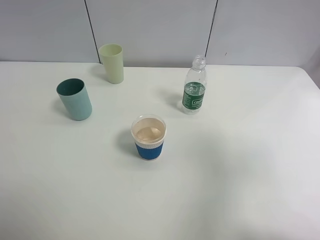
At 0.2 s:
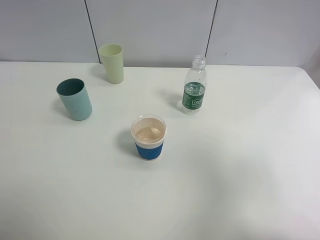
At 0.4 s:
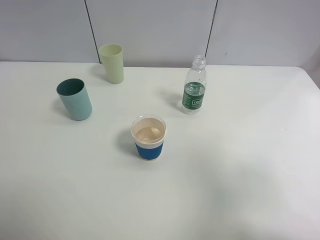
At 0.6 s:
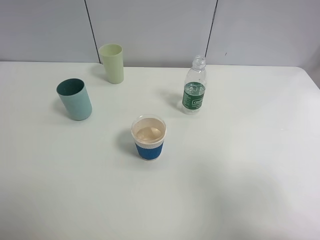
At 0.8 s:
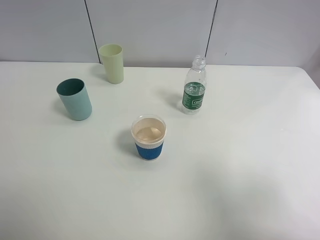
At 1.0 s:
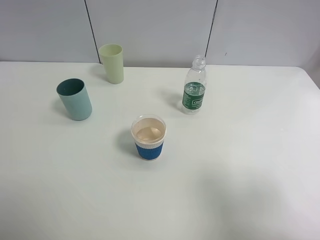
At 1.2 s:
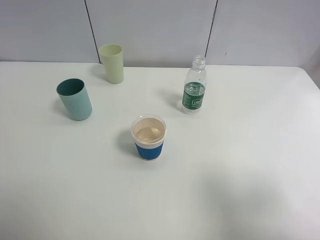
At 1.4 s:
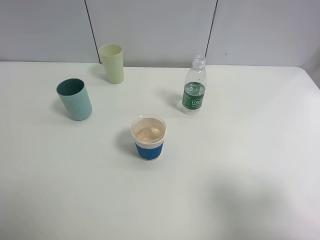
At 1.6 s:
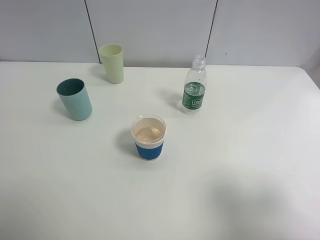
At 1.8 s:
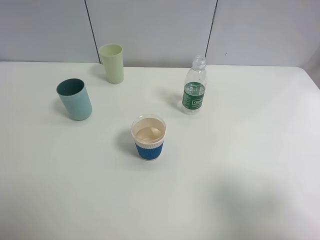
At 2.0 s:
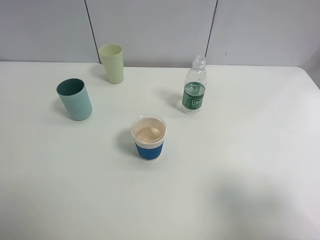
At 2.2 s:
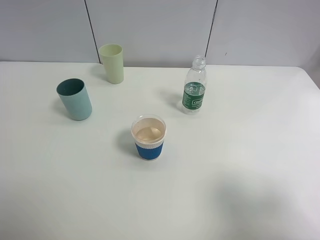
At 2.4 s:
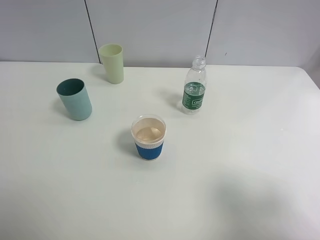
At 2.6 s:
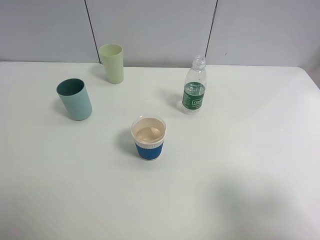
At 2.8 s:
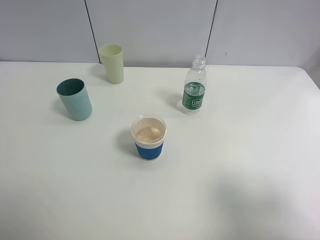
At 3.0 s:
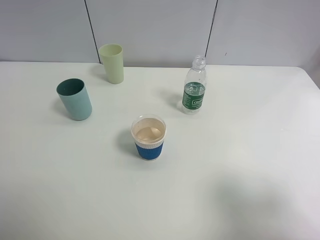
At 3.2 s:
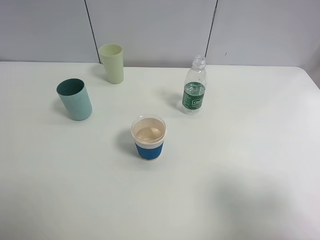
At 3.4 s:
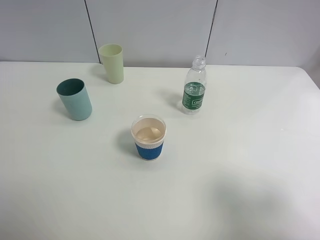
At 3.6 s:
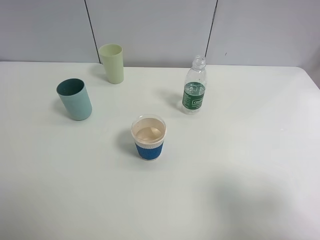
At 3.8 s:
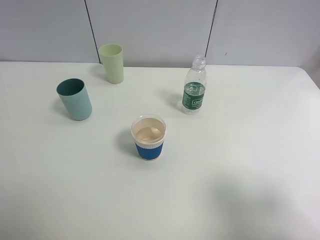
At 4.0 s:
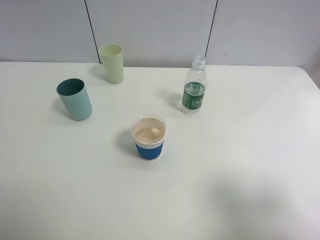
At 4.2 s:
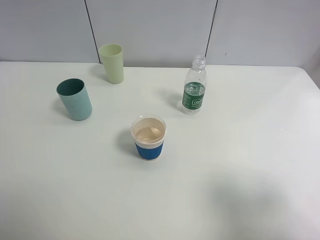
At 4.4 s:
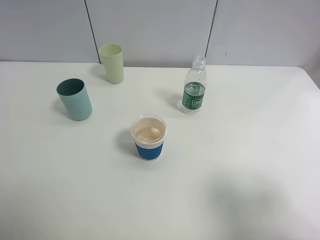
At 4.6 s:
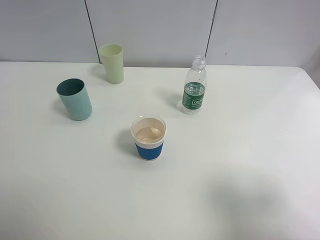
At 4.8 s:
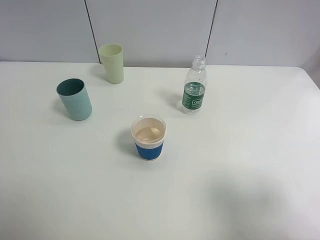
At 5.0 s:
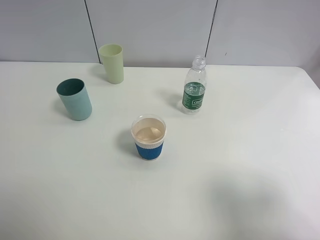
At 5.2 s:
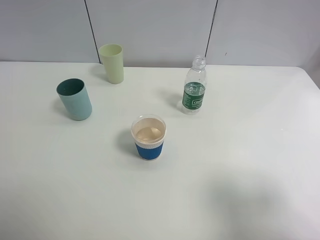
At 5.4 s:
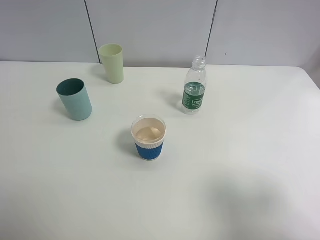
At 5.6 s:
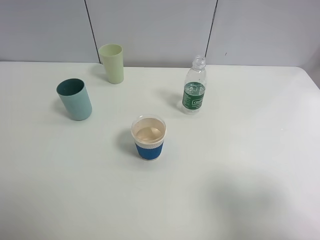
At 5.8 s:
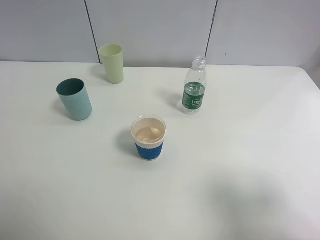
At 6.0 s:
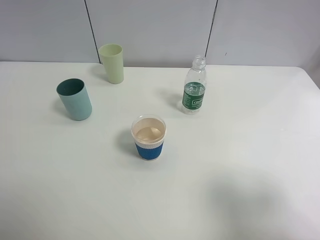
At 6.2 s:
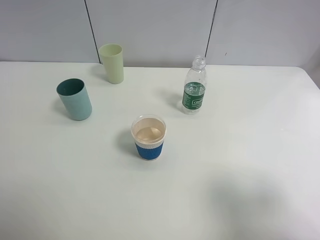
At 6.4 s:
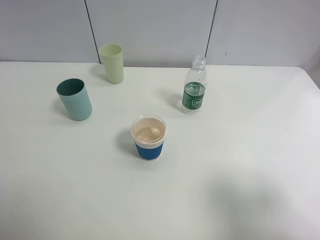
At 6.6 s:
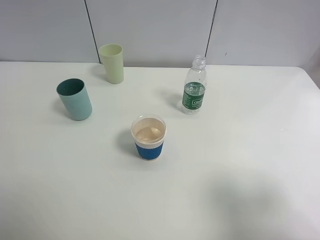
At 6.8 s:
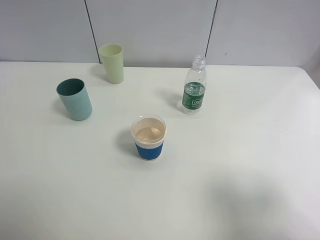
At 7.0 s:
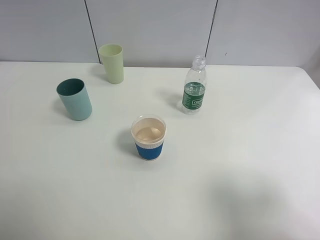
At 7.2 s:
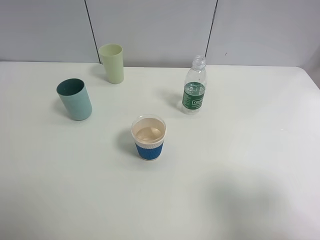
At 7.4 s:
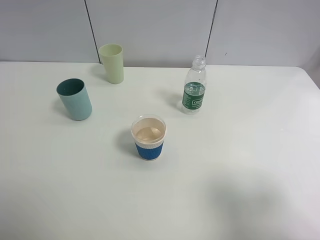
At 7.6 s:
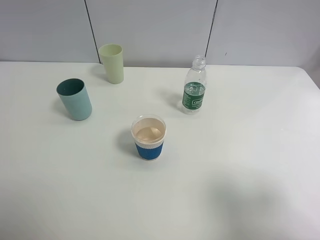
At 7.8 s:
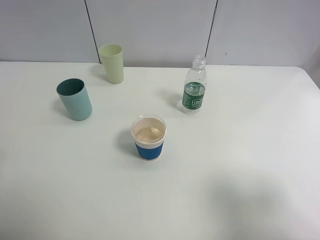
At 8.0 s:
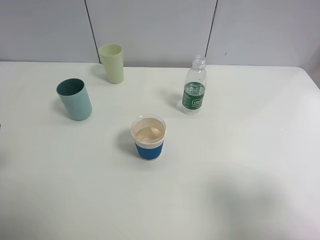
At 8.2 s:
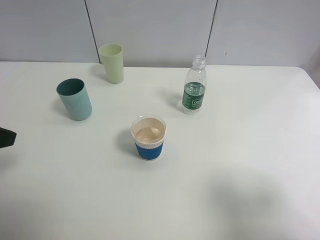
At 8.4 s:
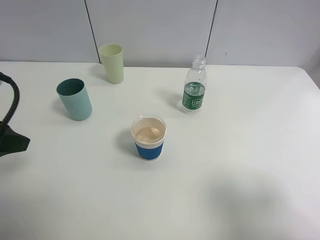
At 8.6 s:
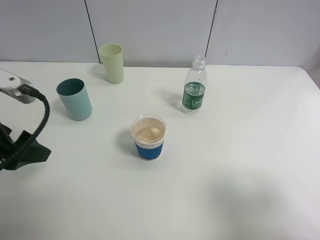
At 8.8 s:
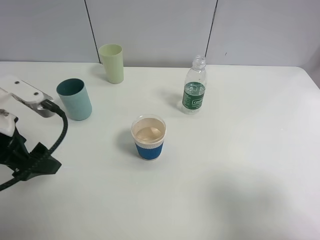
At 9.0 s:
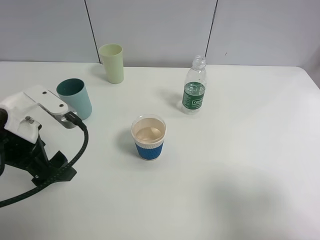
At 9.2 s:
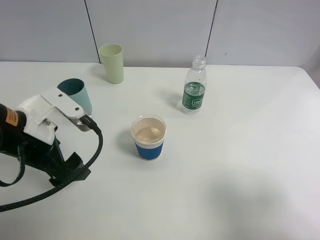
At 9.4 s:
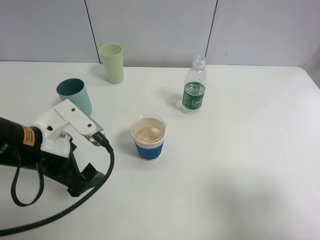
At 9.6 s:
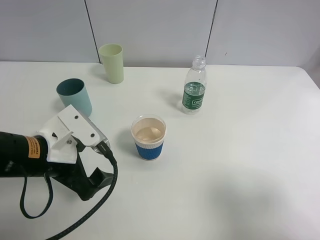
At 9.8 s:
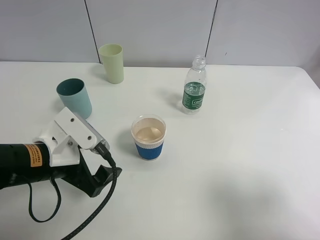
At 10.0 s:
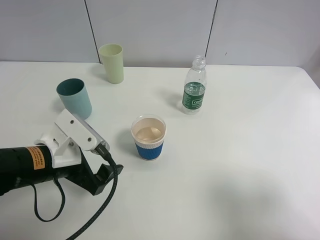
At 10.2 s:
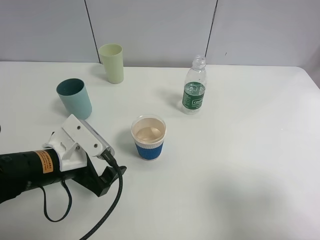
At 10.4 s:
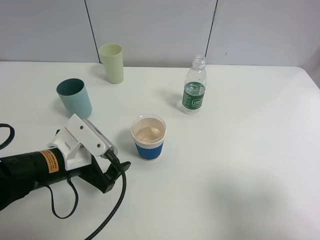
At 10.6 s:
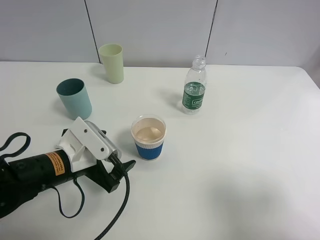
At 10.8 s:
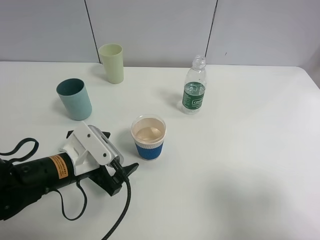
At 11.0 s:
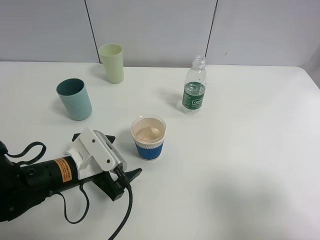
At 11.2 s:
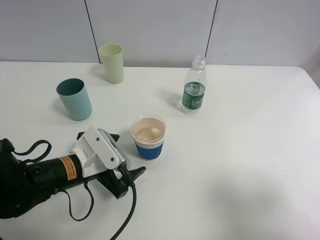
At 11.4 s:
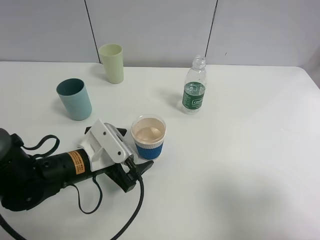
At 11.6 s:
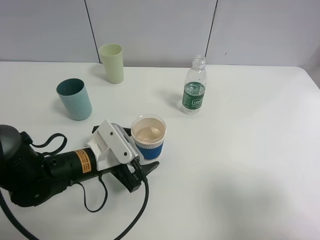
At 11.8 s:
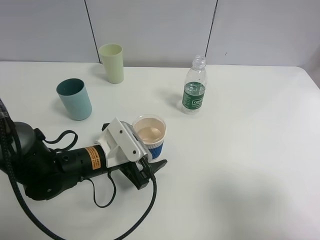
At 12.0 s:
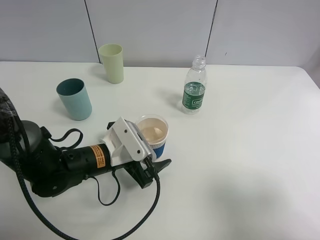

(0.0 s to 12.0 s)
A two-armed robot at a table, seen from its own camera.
Task of the whole recording: use a clamp to hold the bottle of the drink, pour the beverage into a random cup, then clamp the cup containing the drink and pour the drink into another random cup.
0.0 s - 1.6 s: The right gripper shifts roughly 10 cm backward and downward.
1.6 s - 3.0 s: Neither gripper changes place.
4.4 s - 6.0 s: Neither gripper changes place.
7.6 s - 9.0 s: The left gripper is displaced forward, downward and to the right by about 15 cm.
9.0 s - 10.4 s: The left gripper is displaced downward by about 10 cm.
10.4 s - 12.0 s: The left gripper shifts some 5 cm to the right.

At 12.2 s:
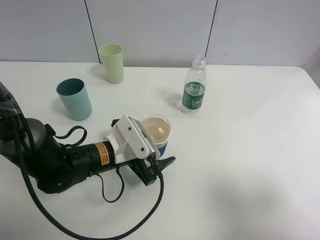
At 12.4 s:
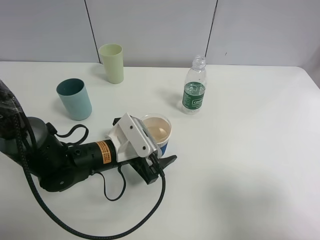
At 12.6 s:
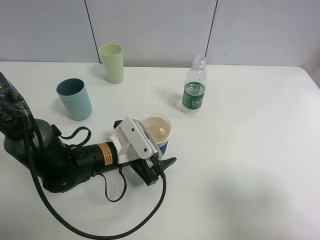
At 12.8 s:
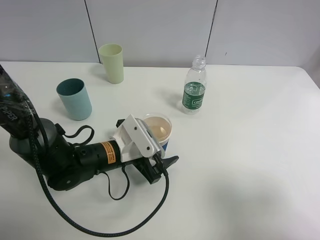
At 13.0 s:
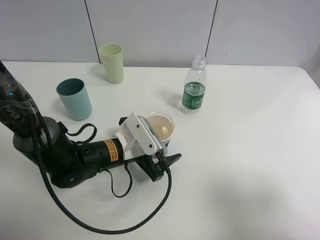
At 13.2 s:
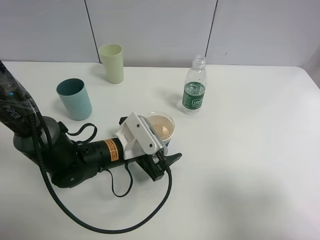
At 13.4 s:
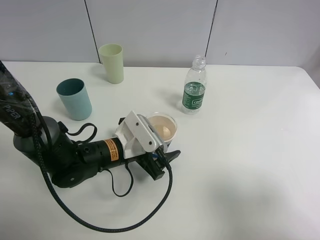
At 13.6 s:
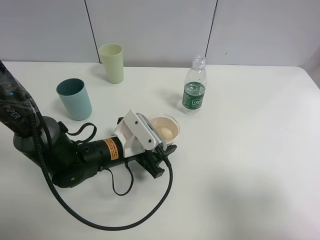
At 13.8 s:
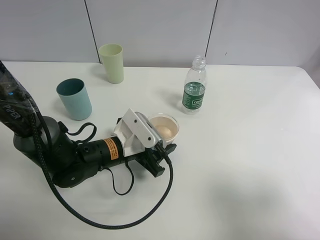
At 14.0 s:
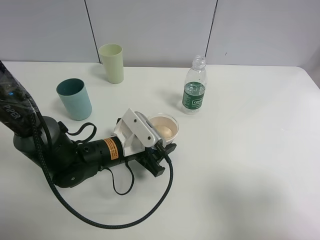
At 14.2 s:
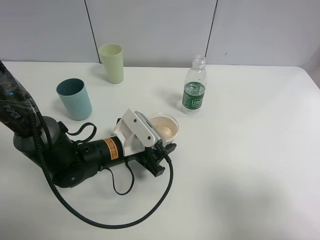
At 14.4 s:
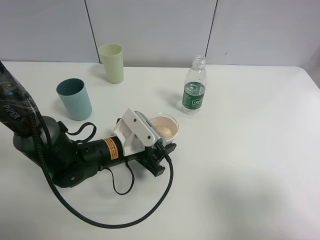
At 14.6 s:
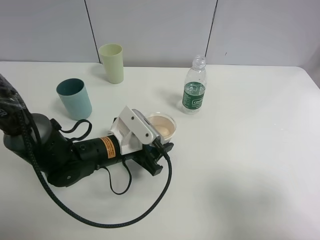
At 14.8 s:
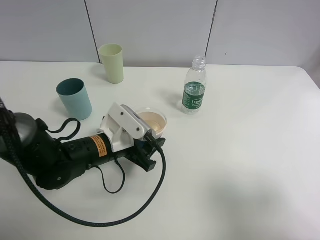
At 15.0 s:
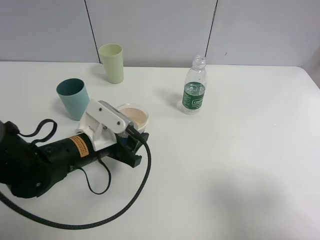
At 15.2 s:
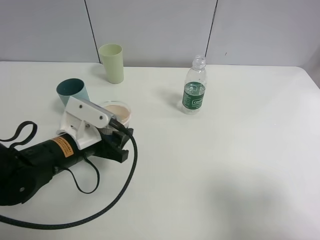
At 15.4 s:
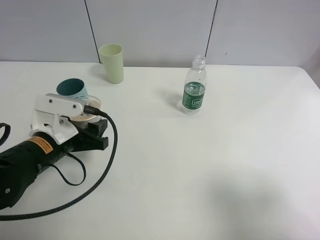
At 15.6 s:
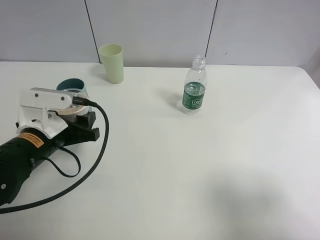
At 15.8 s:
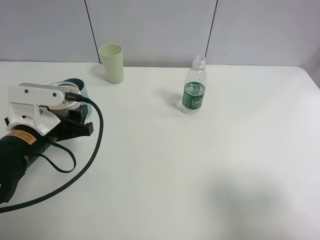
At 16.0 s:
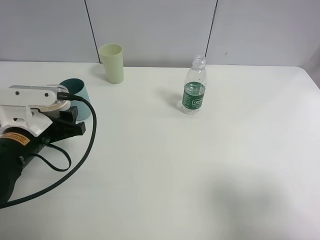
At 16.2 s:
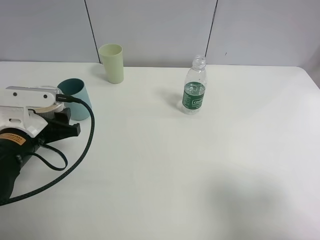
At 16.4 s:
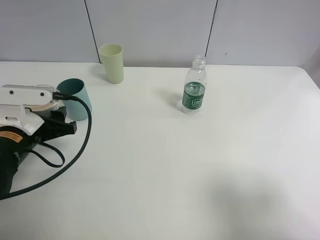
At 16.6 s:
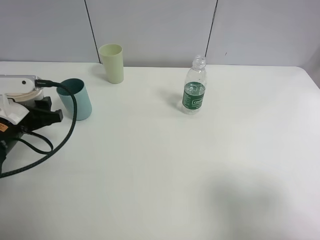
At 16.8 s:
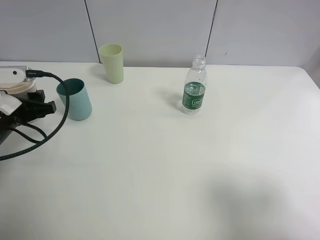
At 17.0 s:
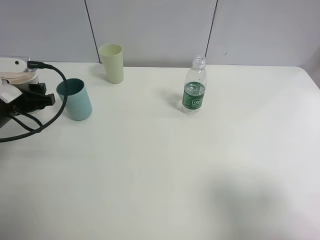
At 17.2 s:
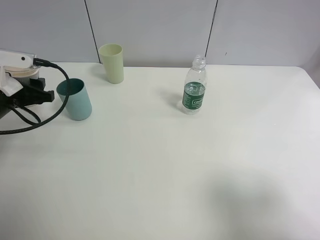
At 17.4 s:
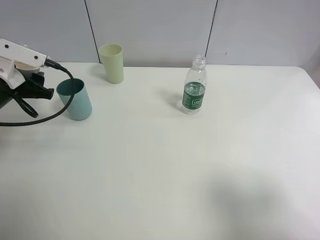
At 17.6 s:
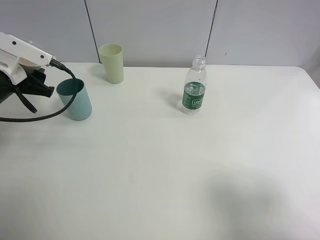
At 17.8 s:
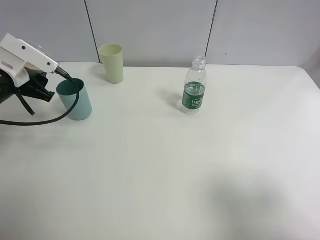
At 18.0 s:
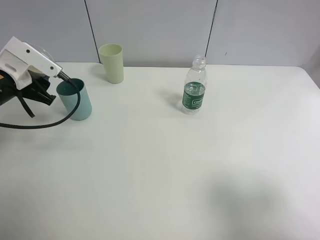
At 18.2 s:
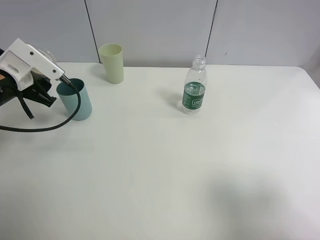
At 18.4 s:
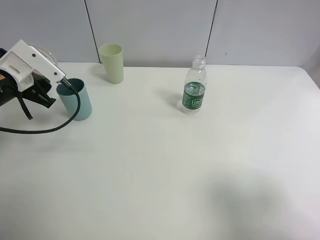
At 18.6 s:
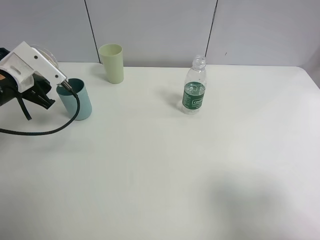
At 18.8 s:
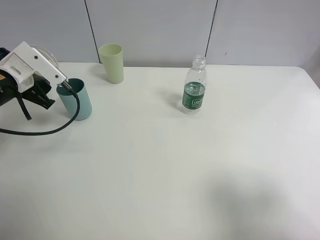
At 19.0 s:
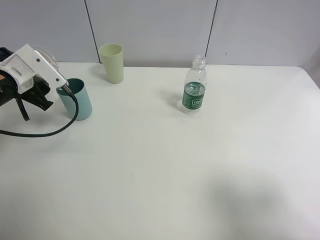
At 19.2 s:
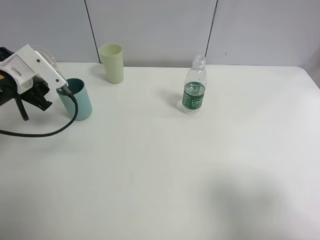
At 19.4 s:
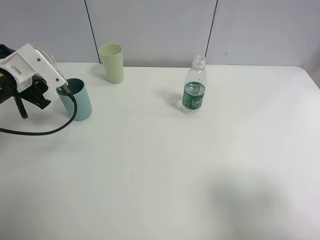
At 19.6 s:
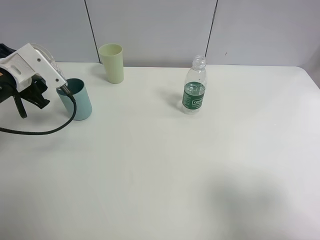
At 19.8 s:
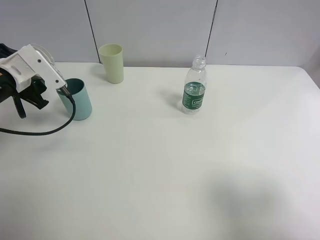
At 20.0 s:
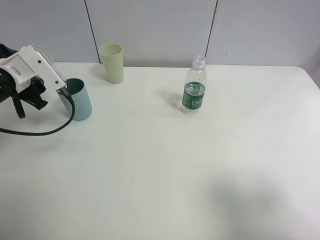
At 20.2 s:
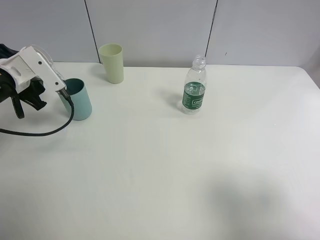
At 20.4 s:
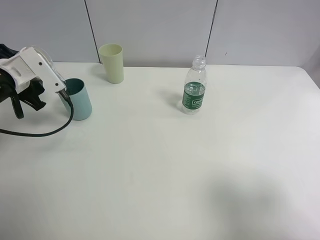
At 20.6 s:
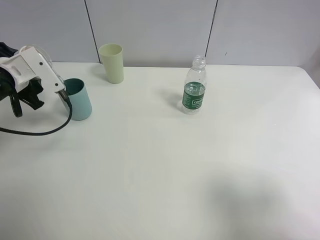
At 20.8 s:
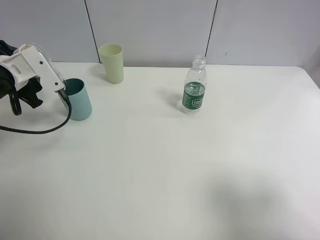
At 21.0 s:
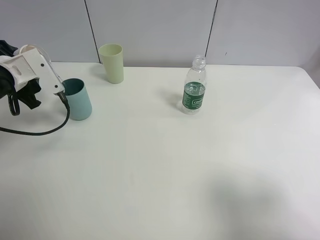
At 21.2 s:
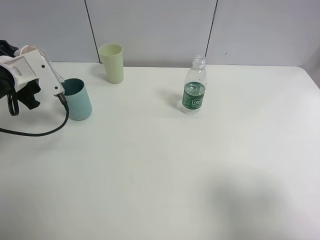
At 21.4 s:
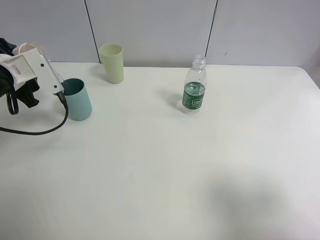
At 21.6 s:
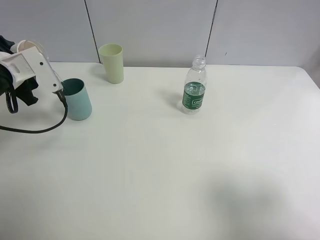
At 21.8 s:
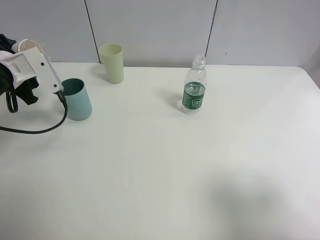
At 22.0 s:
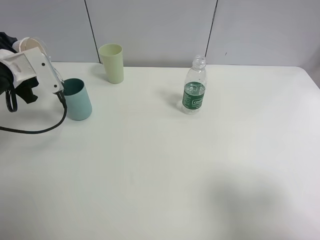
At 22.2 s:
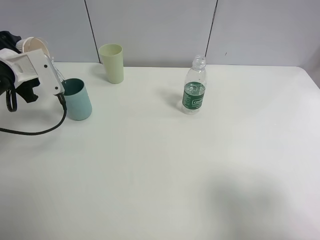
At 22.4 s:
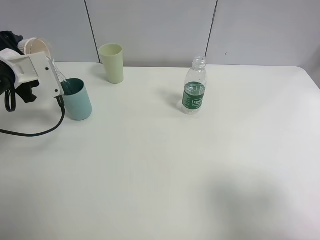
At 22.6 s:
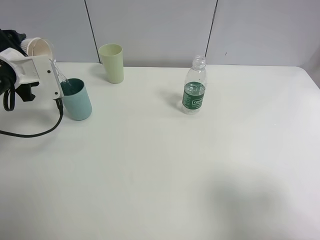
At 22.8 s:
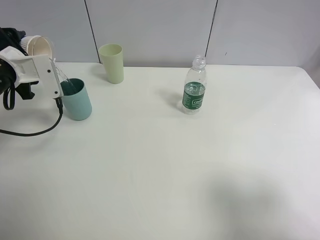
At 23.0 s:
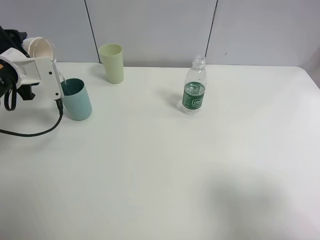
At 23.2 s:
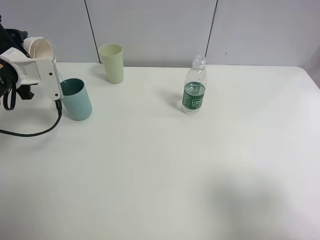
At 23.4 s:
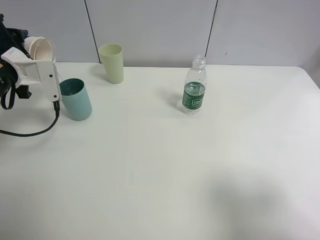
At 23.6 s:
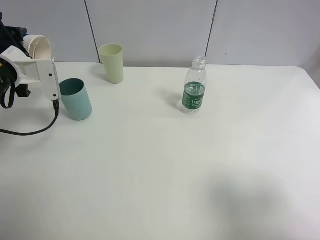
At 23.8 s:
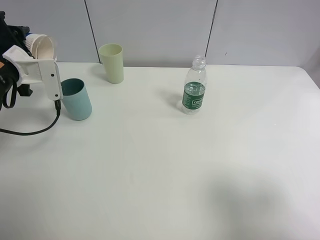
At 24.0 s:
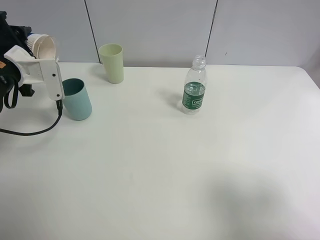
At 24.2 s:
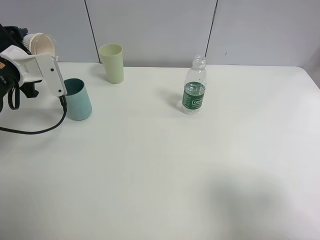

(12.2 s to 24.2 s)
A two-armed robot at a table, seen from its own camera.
Task of the whole recording: use a clamp to hold the bottle of the drink, pour the beverage into a random cup, then clamp the cup containing the drink and pour the drink into another random cup.
Step, 12.2 s - 14.8 s: Pick up the paper cup with left gripper.
12.2 s - 13.8 s: The left gripper closes up.
13.8 s - 15.2 s: The left gripper travels to the left by roughly 10 cm.
15.2 s - 16.6 s: The left gripper goes about 10 cm to the left.
16.6 s - 18.2 s: The left gripper shifts some 10 cm forward.
18.2 s - 19.8 s: The grippers make only small movements.
19.8 s - 21.2 s: The grippers move only a little.
21.2 s - 22.6 s: The grippers stay close to where they were, moving slightly.
22.6 s - 24.2 s: The grippers move only a little.
